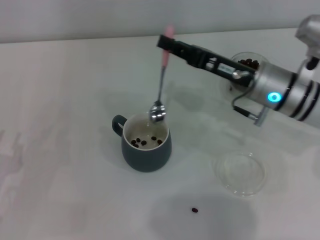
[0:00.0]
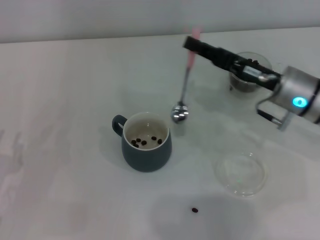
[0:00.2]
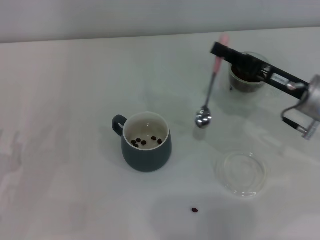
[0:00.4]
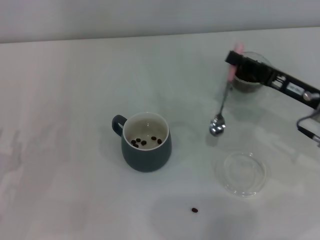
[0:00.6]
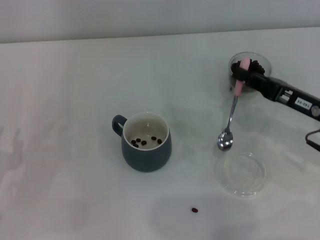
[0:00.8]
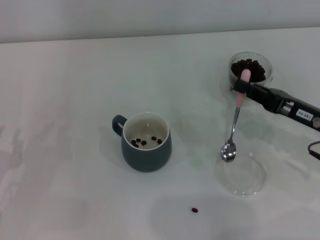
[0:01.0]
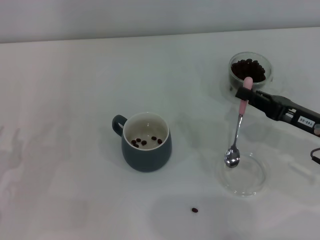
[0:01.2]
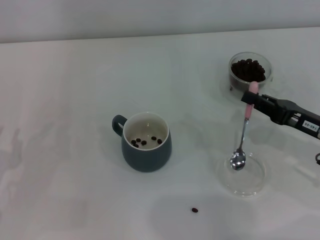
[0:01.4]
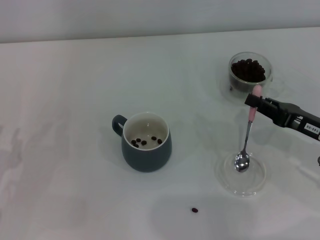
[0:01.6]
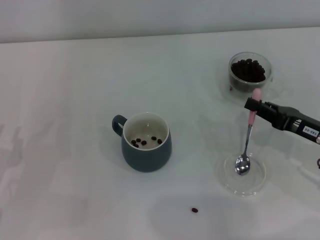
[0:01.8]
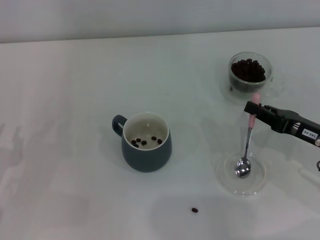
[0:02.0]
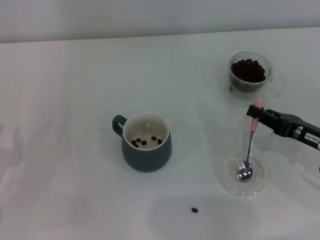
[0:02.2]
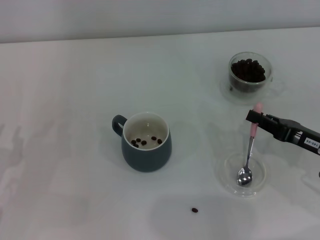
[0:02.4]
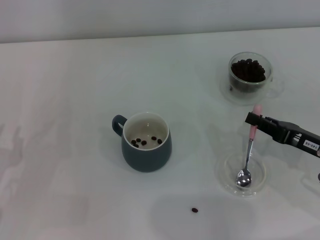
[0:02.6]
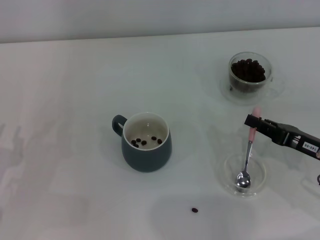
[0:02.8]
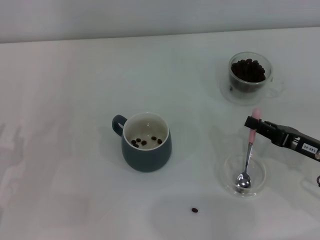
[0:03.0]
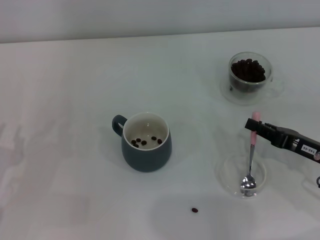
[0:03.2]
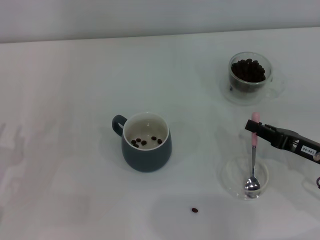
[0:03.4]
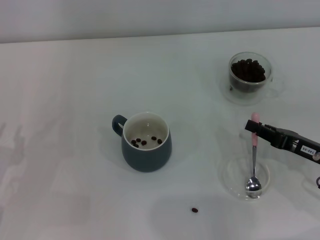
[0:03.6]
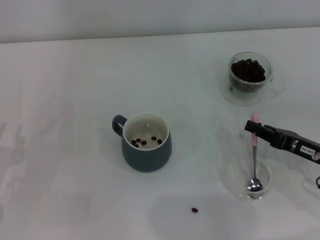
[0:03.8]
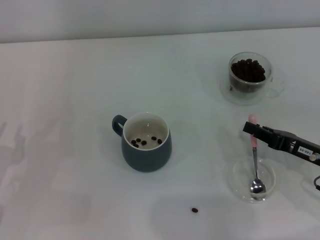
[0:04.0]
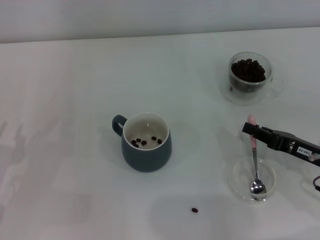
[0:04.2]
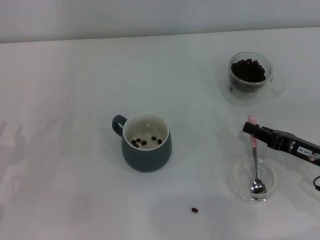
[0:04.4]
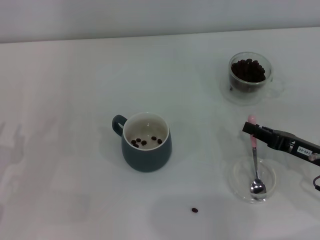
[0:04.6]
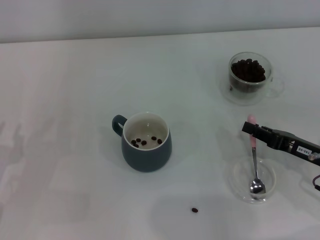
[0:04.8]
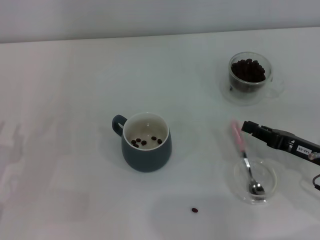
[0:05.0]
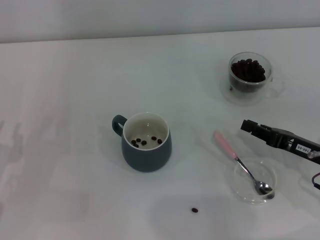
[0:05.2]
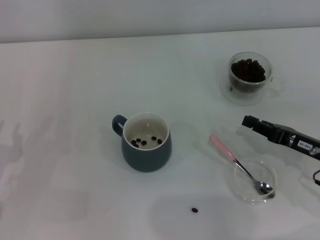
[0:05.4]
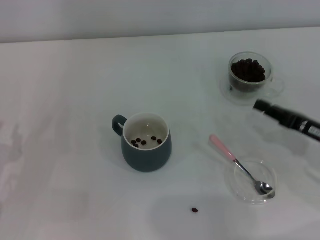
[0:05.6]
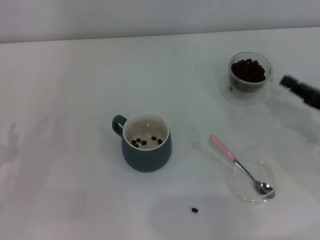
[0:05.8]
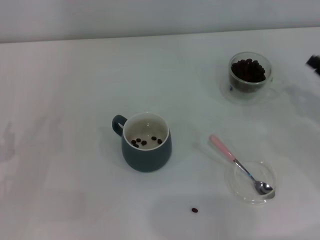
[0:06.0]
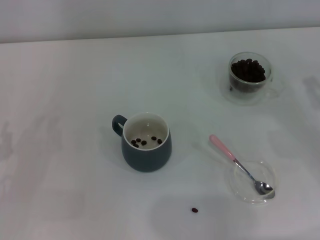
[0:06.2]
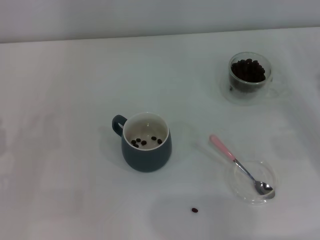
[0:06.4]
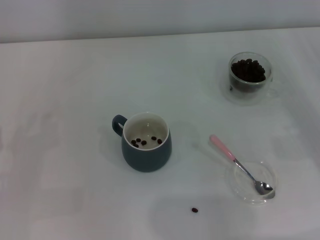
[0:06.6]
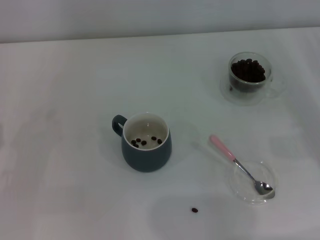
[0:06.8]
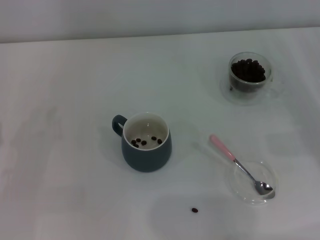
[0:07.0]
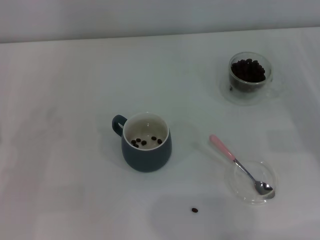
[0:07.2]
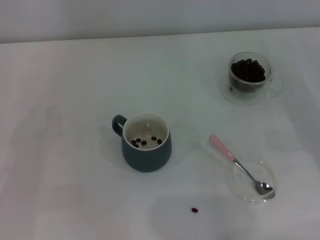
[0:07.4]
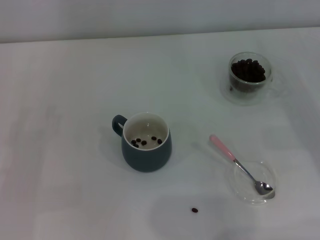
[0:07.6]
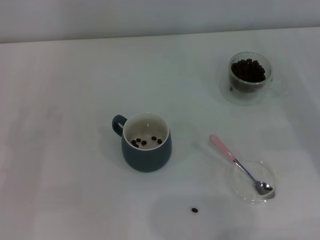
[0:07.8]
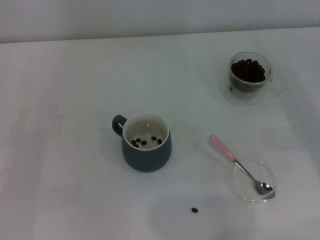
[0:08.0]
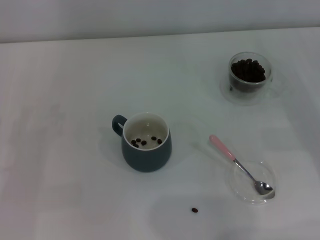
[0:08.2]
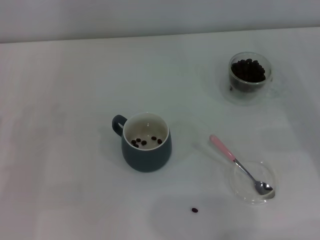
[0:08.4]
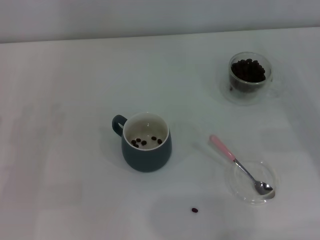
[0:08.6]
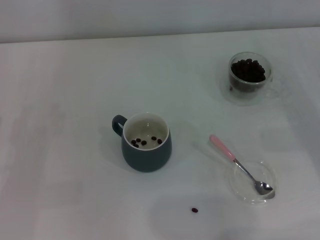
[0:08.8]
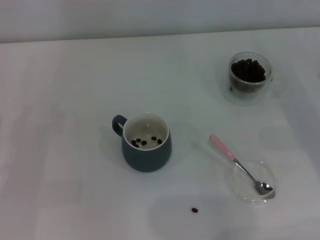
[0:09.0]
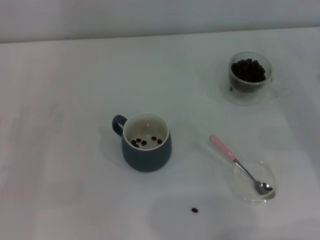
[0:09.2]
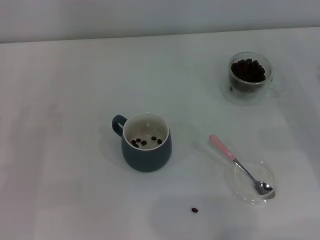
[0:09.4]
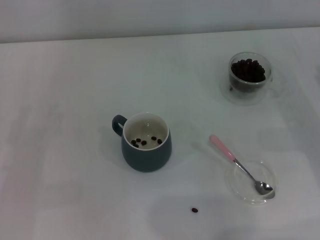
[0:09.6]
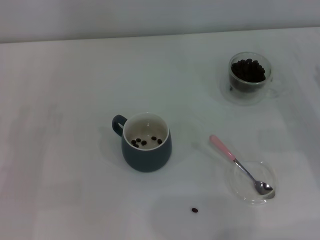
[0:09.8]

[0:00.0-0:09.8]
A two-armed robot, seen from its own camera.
Task of the whole recording: Use a pink spoon to take out the coffee beans from the glass and pour them into the gray cup.
Step, 0:00.2 to 0:05.2: Place the spoon back in its original place with the right gripper.
0:00.0 to 0:01.4: The right gripper is displaced to the right and backward by some 15 cm.
0:01.4 to 0:02.8: The grippers stay close to where they were, moving slightly.
0:02.8 to 0:04.2: Both grippers stay about where they are.
0:04.2 to 0:05.6: The grippers make only small movements.
0:05.6 to 0:07.0: The right gripper moves to the right, approximately 10 cm.
